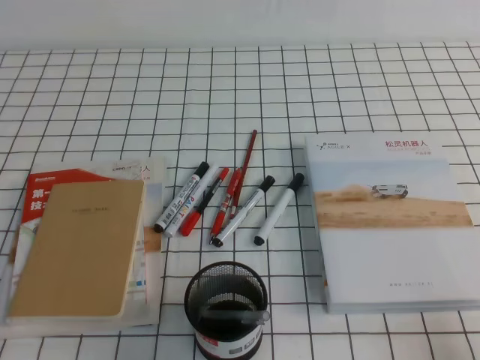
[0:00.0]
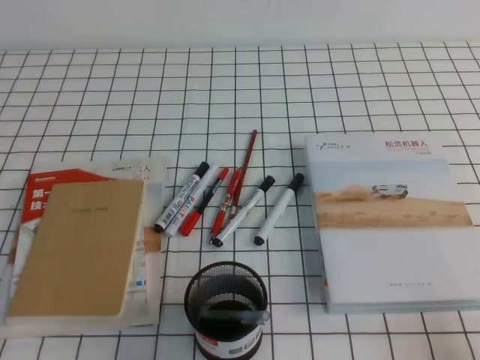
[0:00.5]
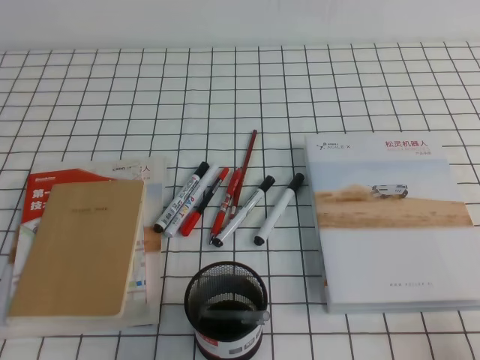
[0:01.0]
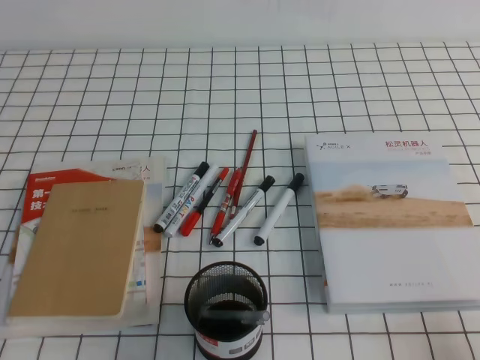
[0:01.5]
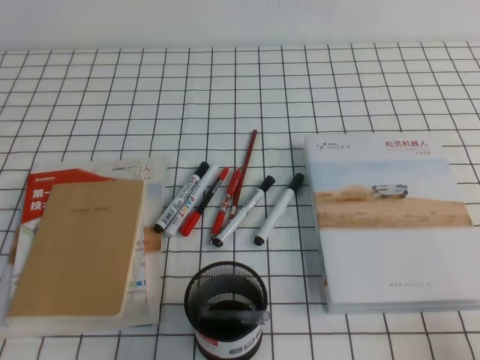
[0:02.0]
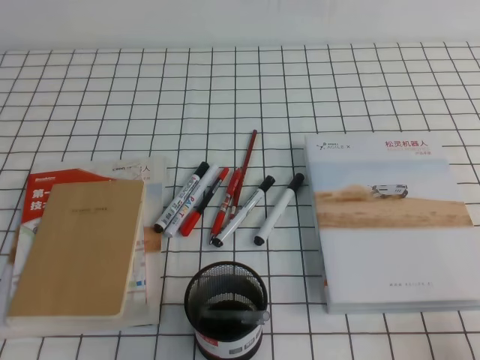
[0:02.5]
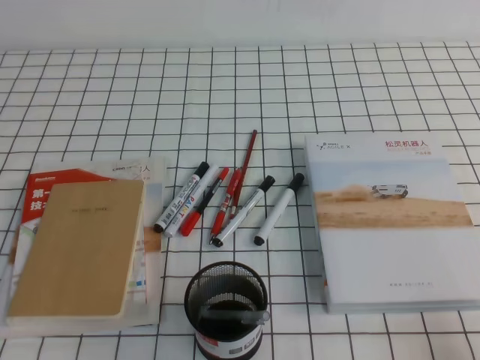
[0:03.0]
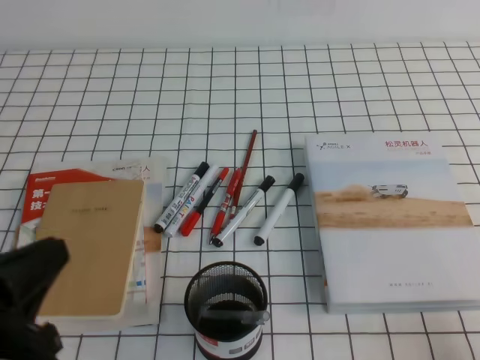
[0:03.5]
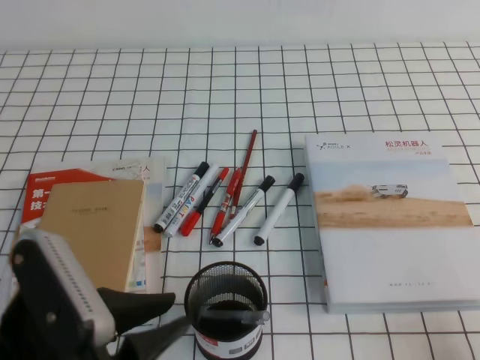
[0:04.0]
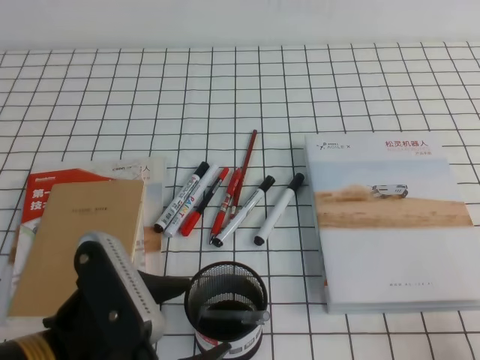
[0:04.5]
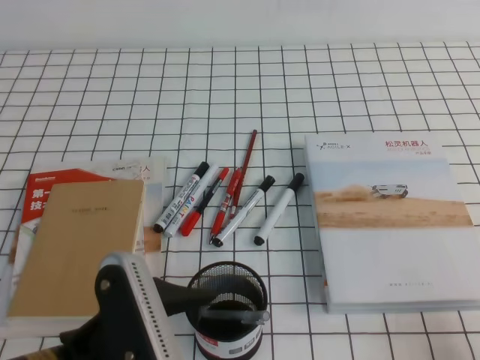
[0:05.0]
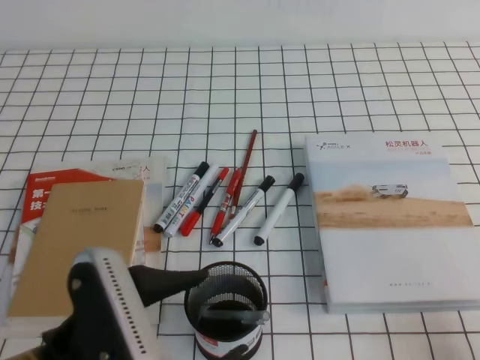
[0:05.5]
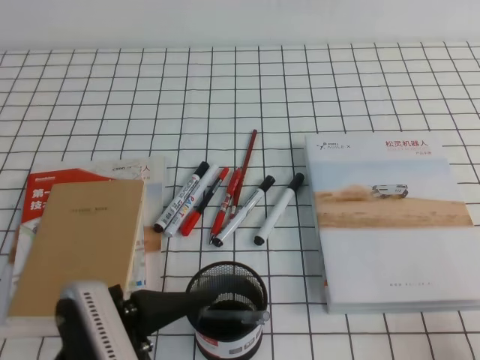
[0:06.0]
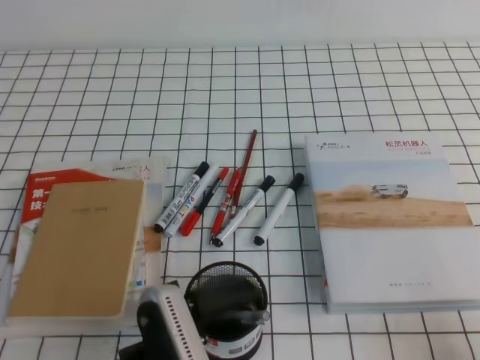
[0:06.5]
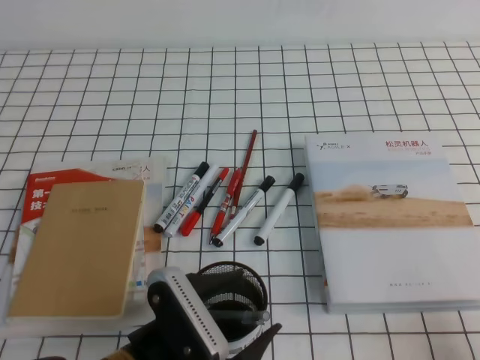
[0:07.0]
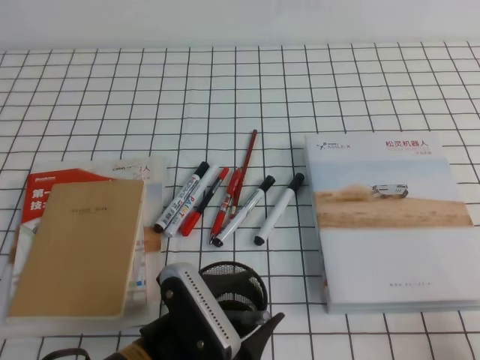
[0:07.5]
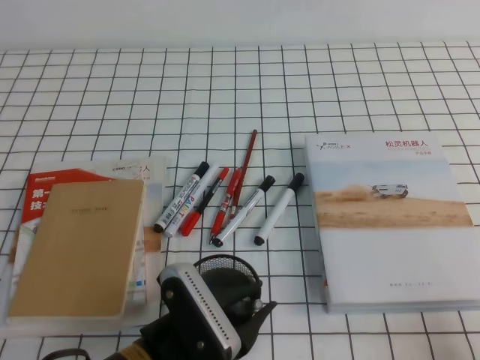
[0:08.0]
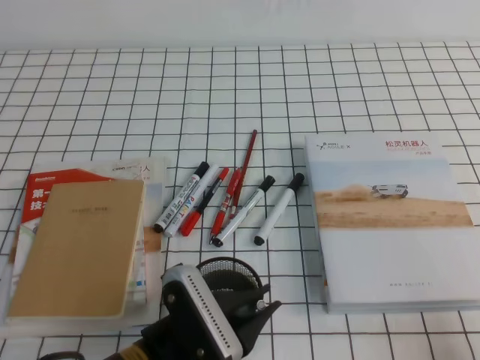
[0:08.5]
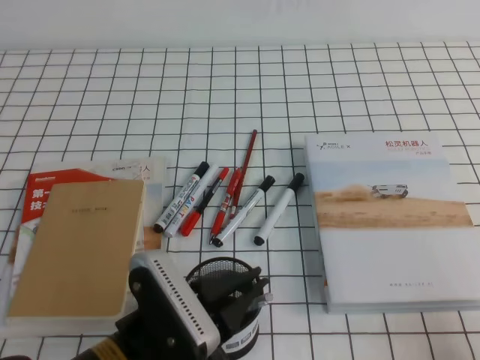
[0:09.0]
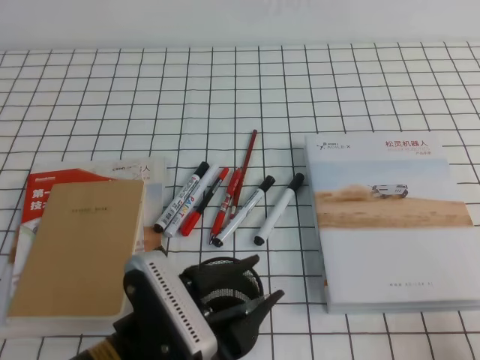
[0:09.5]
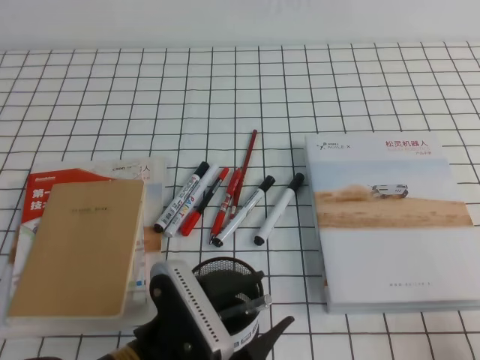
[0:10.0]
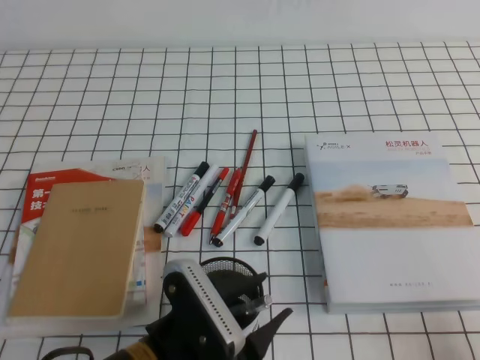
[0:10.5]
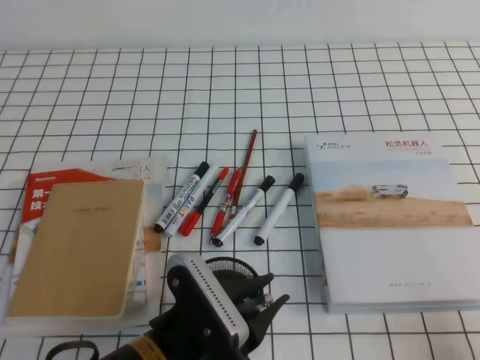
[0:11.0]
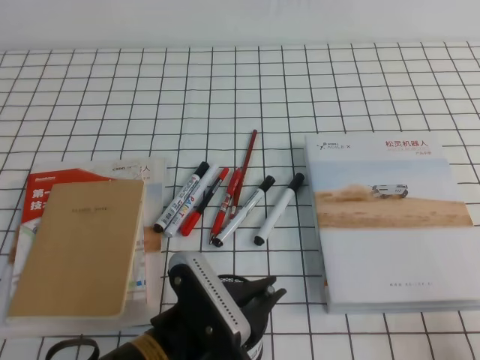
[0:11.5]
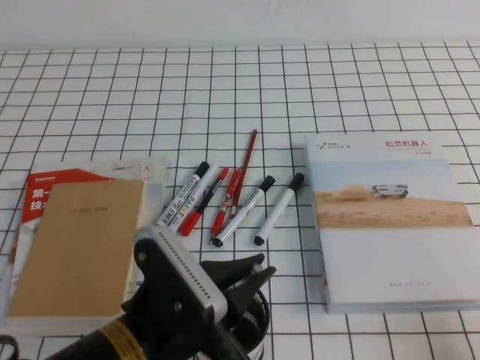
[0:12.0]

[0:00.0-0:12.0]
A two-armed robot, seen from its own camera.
0:00.0 to 0:02.0: Neither gripper changes place.
0:02.0 to 0:04.0: The left gripper goes approximately 15 cm to the right and upward.
0:04.0 to 0:06.0: The left gripper moves some 5 cm, and opens.
0:06.0 to 0:08.0: The left gripper shifts about 10 cm downward and to the right, and closes.
0:08.0 to 0:10.0: The left gripper opens up.
0:10.0 to 0:12.0: The left gripper closes.

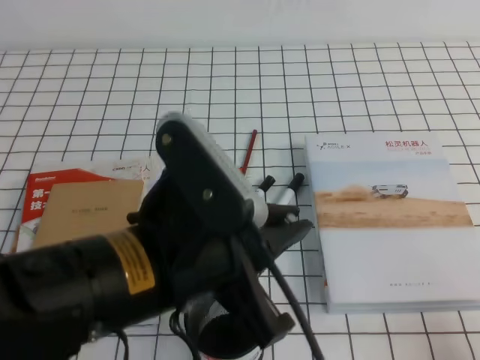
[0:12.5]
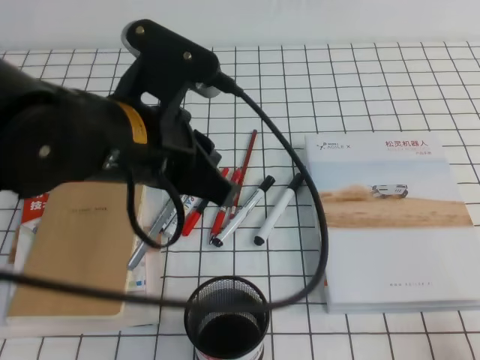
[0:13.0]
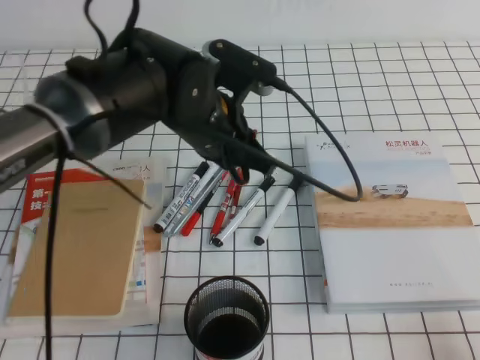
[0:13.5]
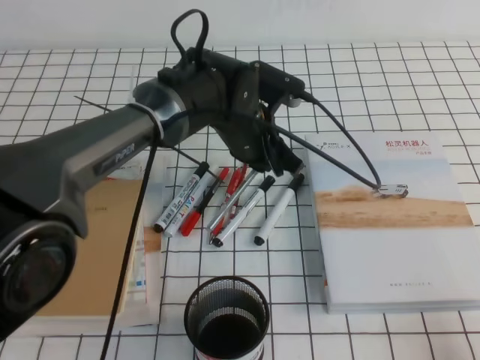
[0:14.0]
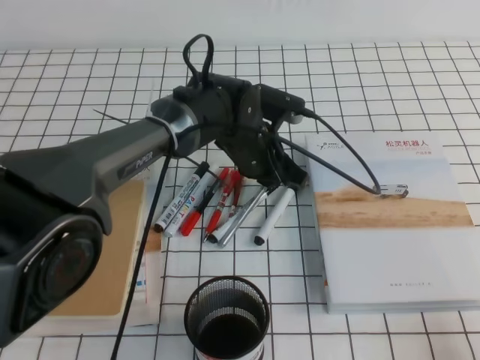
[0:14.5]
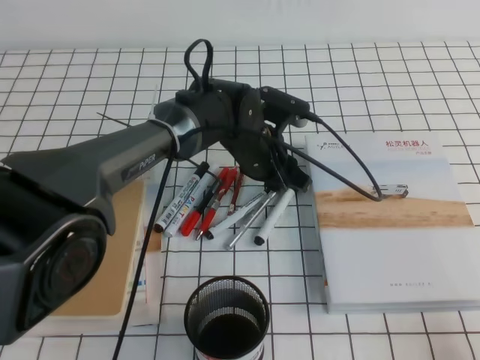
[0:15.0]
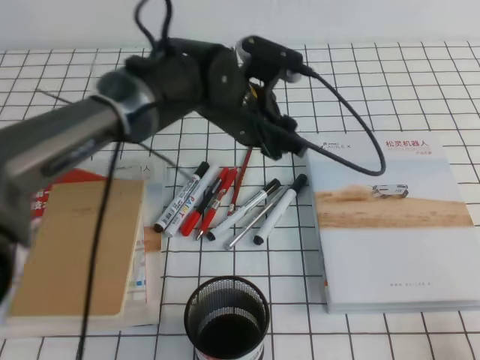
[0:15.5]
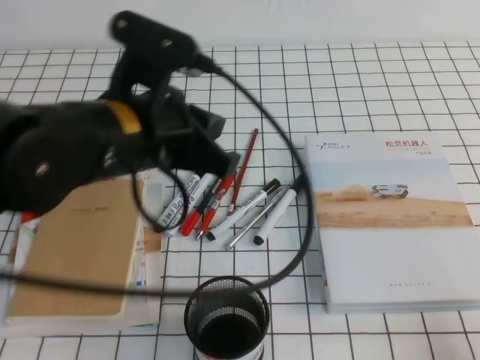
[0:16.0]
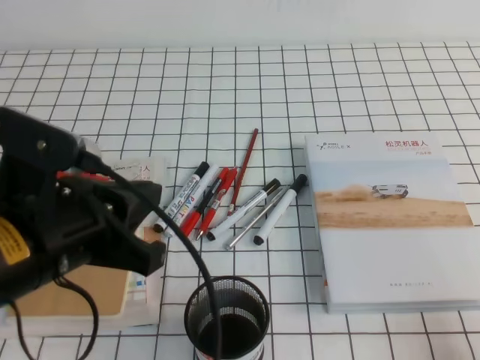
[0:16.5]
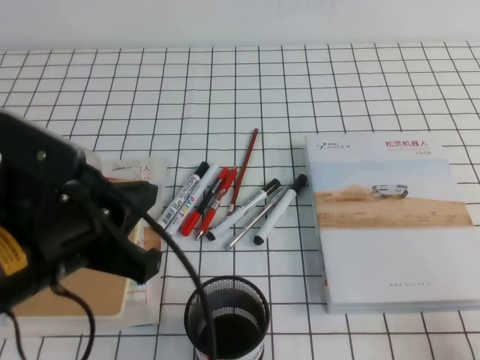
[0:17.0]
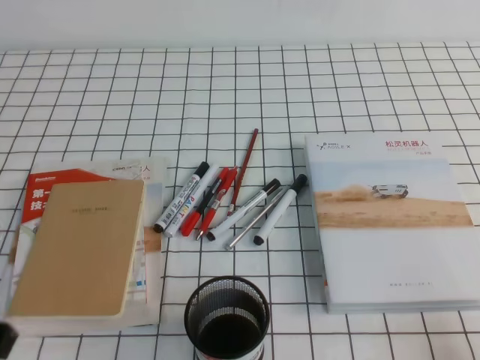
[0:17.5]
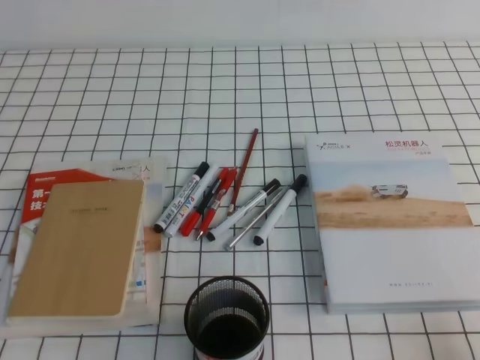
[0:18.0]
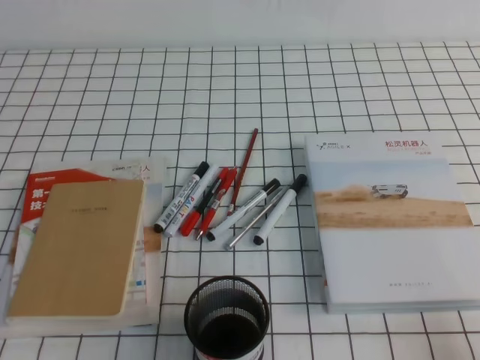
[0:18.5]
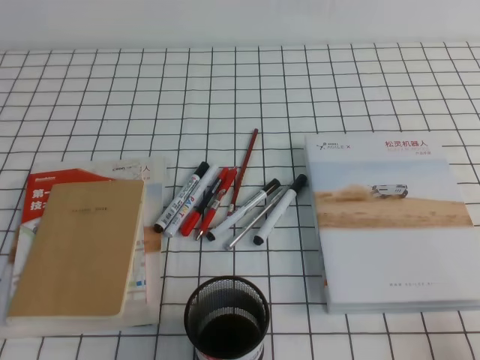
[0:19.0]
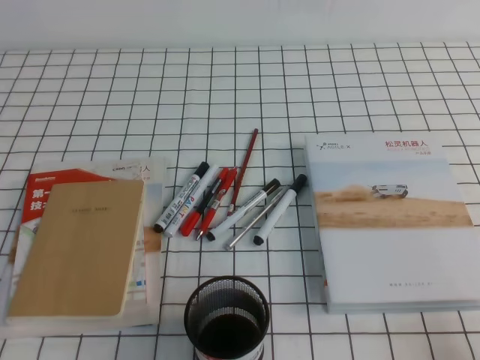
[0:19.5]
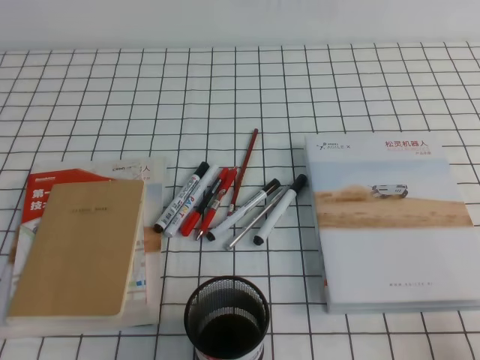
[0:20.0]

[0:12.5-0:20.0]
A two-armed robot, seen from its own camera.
Step, 0:12.5 to 0:20.0: Pick up the pen from the pen holder.
0:12.5 to 0:14.5: The left gripper shifts roughly 30 cm forward and downward.
0:14.5 to 0:16.5: The left gripper shifts roughly 30 cm backward, to the left and upward, and opens, then closes again.
0:16.5 to 0:18.0: The left gripper moves to the left, backward and downward, about 20 cm.
